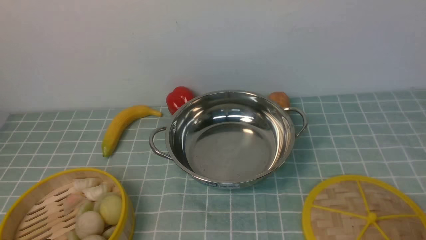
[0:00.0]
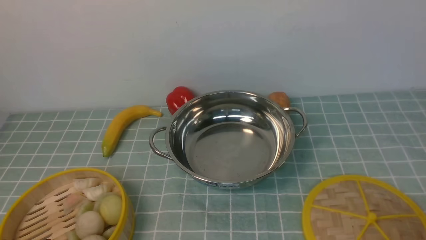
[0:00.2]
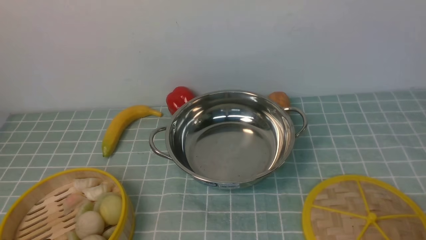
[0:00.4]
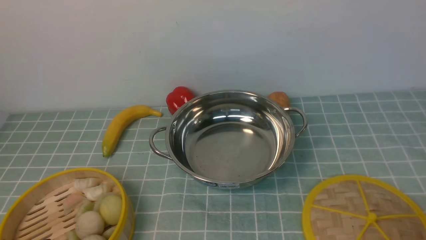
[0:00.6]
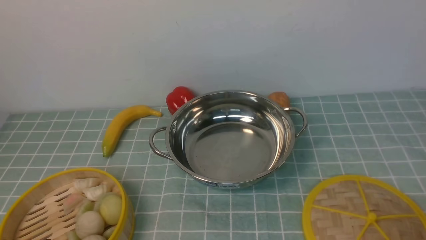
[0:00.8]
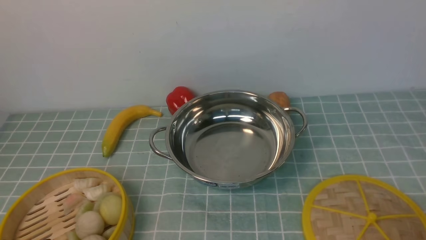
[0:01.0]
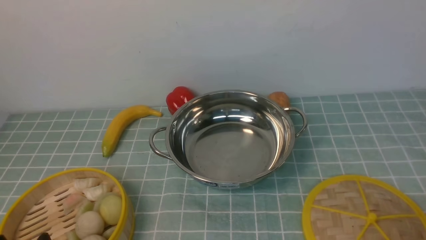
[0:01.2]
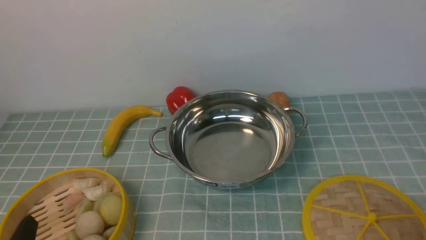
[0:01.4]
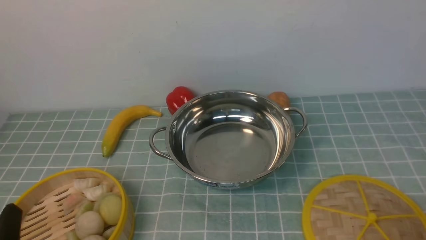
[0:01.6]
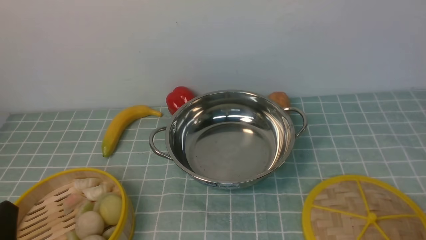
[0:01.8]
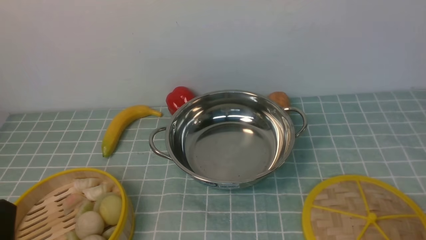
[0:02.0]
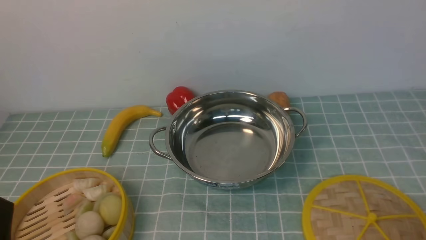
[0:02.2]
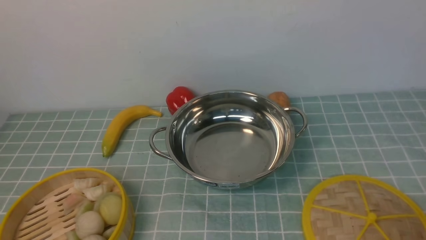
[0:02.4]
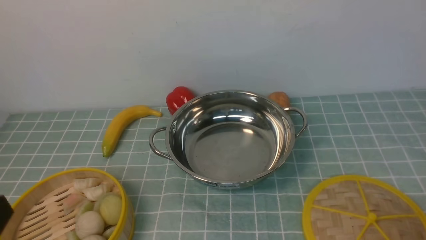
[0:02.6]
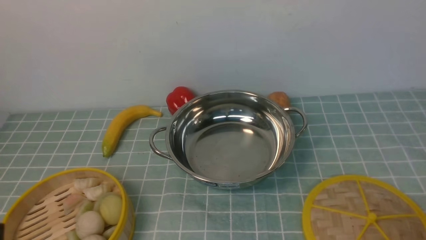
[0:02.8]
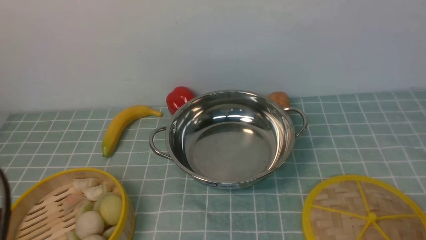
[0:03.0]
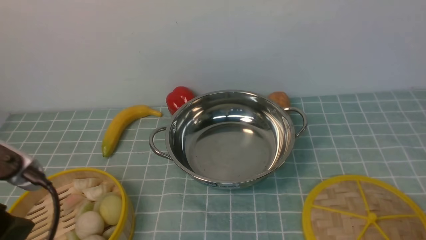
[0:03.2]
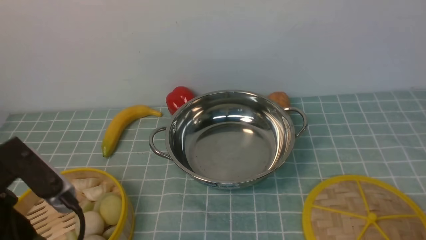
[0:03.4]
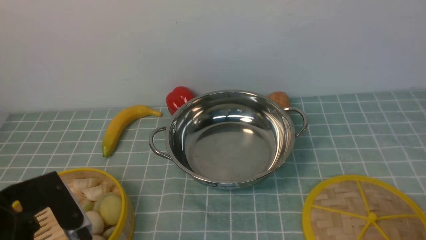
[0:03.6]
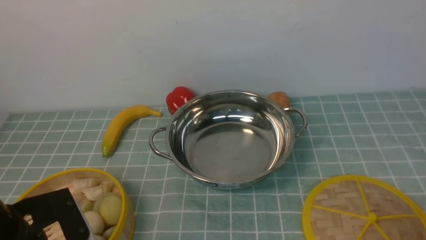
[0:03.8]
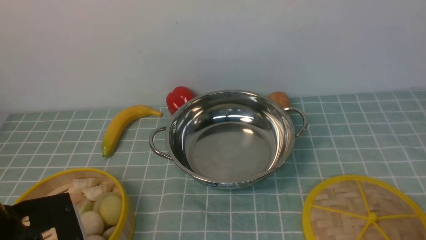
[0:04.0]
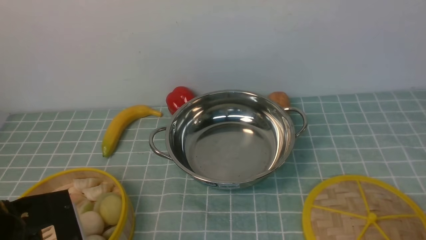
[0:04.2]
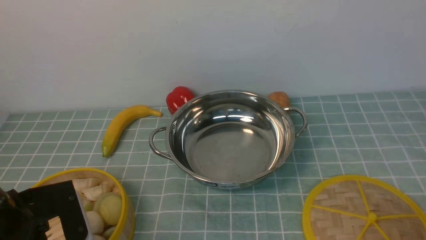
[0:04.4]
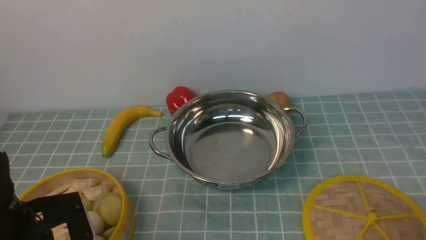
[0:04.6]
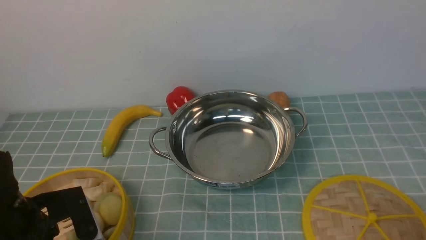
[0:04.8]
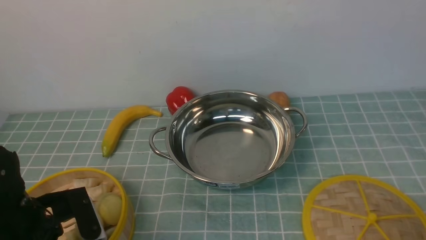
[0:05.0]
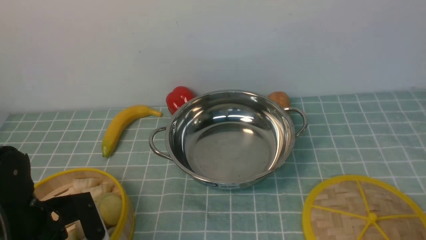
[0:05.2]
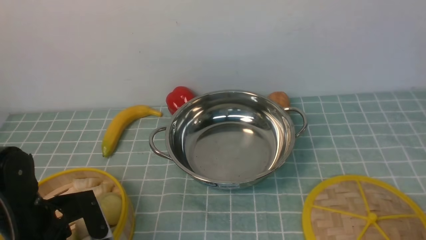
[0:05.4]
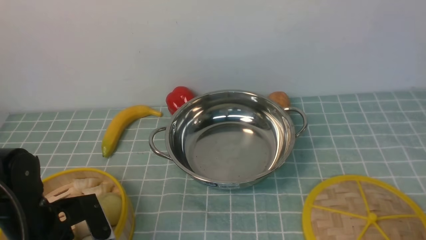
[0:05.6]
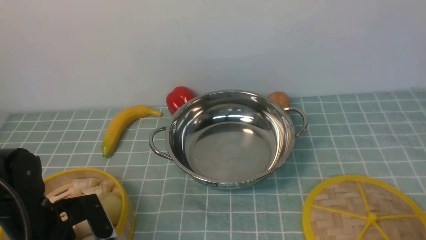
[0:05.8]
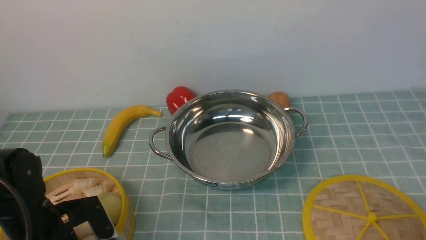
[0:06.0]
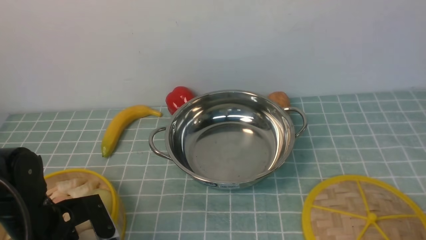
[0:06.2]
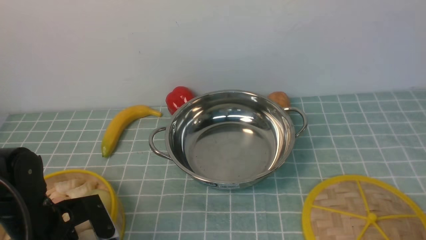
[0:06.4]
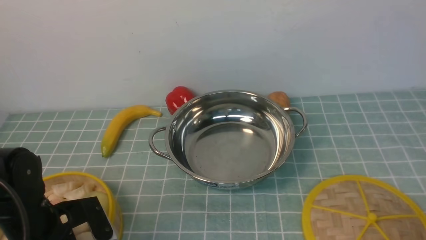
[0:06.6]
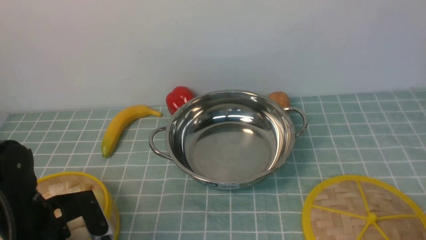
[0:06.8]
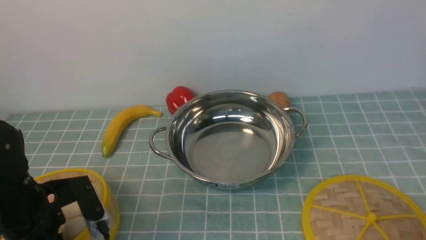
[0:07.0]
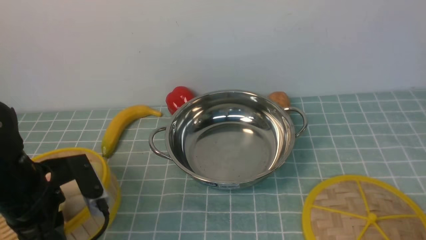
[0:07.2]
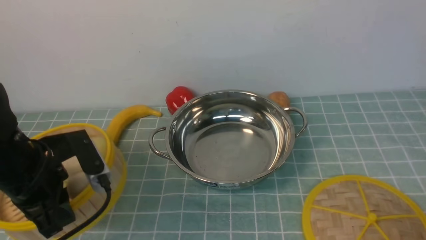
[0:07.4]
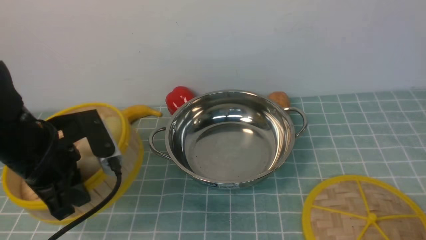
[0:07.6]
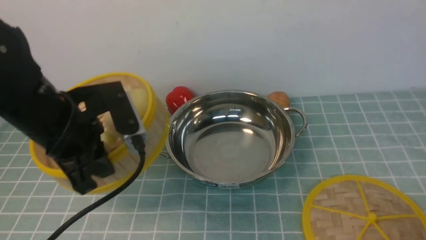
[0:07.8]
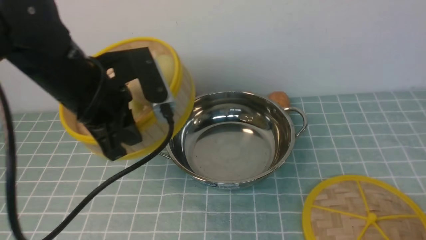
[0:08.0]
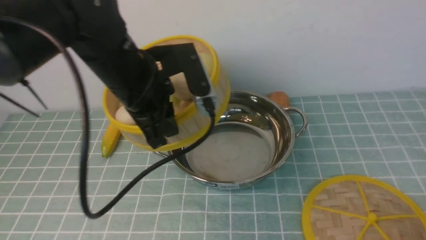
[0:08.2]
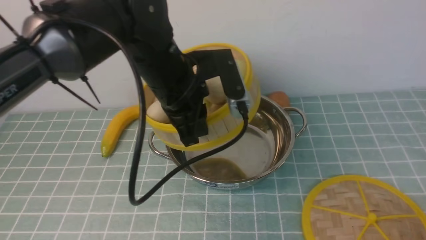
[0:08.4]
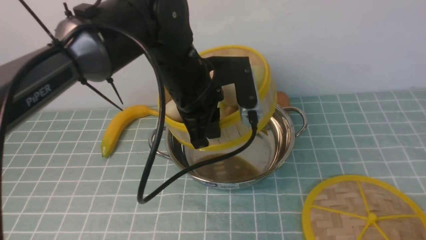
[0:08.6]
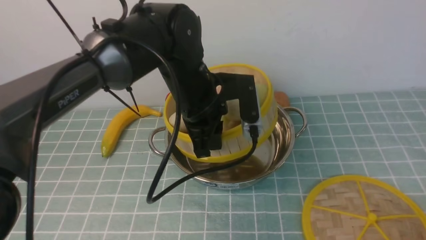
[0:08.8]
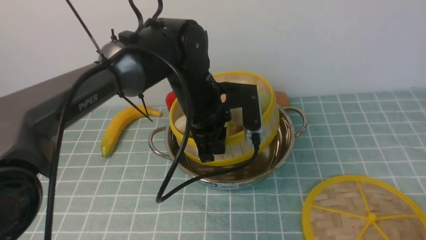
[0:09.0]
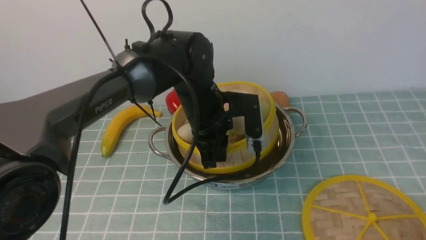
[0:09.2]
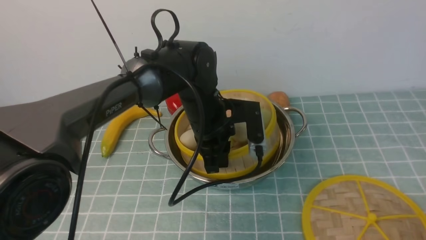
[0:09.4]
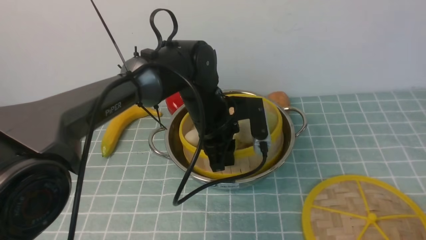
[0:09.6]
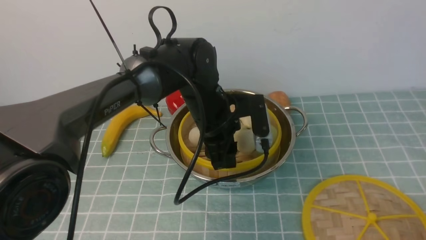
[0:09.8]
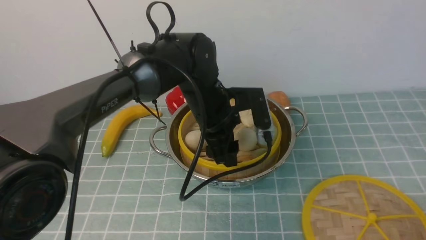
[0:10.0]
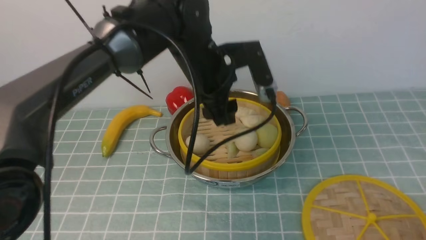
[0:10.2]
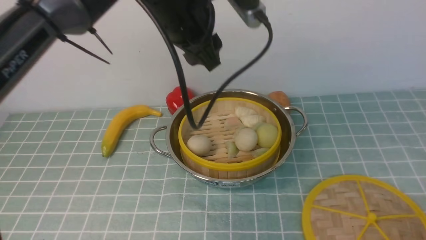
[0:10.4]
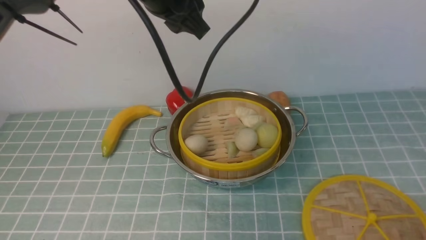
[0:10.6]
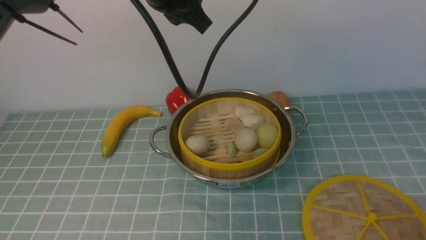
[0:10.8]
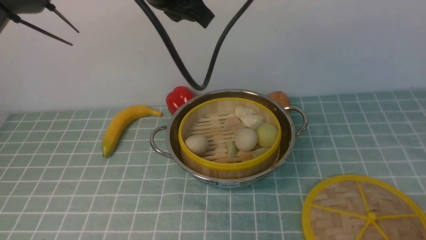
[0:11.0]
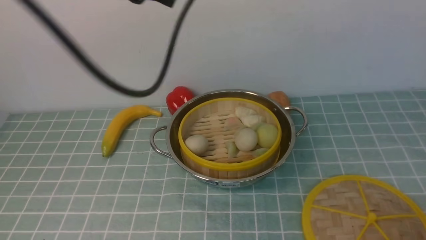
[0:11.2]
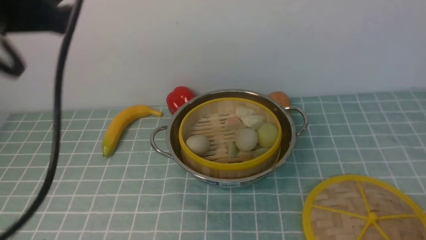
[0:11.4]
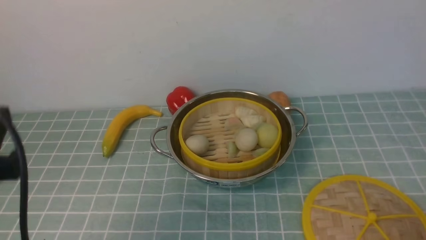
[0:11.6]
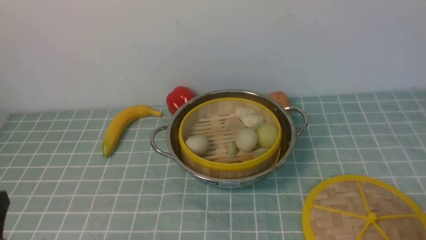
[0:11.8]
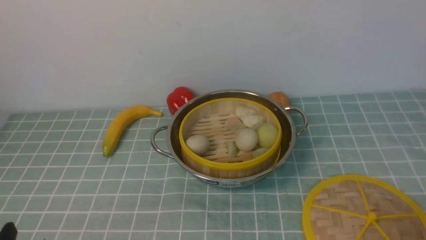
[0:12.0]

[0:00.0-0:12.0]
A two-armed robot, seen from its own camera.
Task of the whole recording: place the steamer in the pot on the blue tablecloth, and put the lid on the steamer.
Step, 0.0 to 7.2 s: use the left arm to lift the steamer closest to it.
Step, 7.4 to 10.4 s: use the left arm to put the steamer into the iron steamer pot in the middle.
1.6 to 3.0 s: The left gripper shifts some 15 cm upward.
3.0 to 4.4 s: The left gripper moves downward and forward, approximately 15 cm.
4.4 to 6.0 s: The left gripper heads downward, covering about 5 cm, and closes.
6.0 to 7.6 s: The left gripper travels upward by approximately 10 cm.
7.6 to 9.0 s: The left gripper heads to the right and forward, covering about 20 cm.
9.0 to 10.4 s: The left gripper travels upward by approximately 15 cm, and opens up.
10.4 to 12.0 s: The left gripper goes roughly 40 cm backward, to the left and downward.

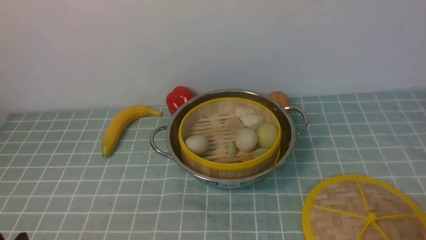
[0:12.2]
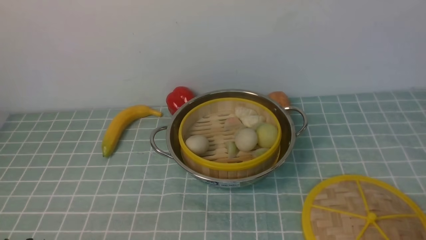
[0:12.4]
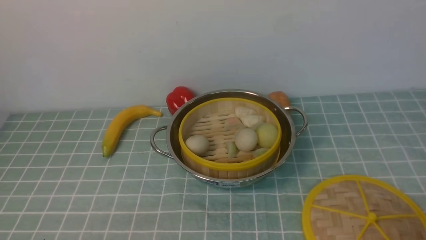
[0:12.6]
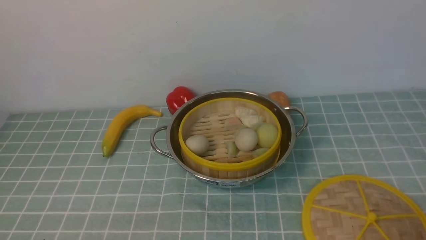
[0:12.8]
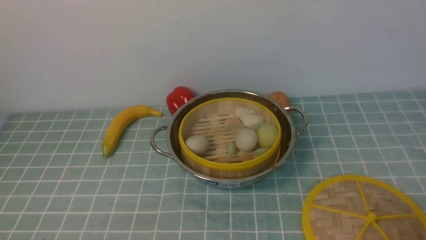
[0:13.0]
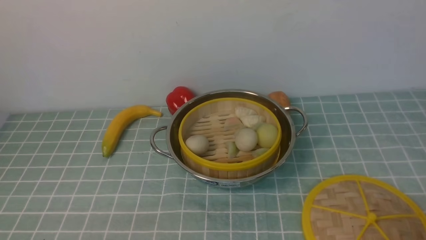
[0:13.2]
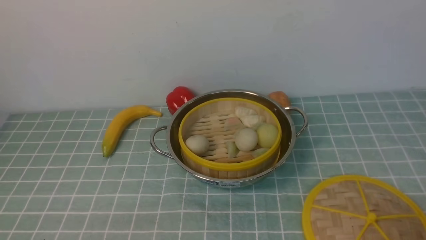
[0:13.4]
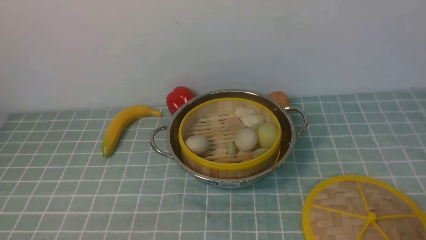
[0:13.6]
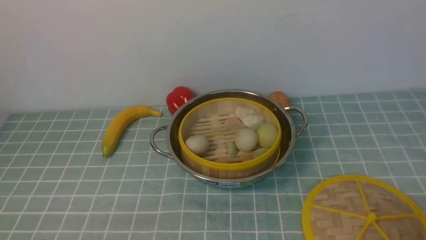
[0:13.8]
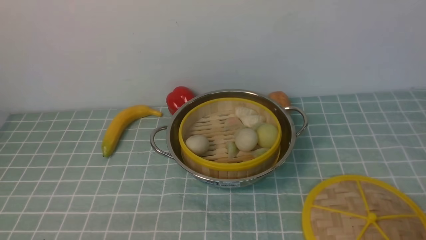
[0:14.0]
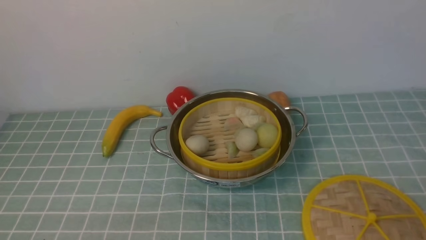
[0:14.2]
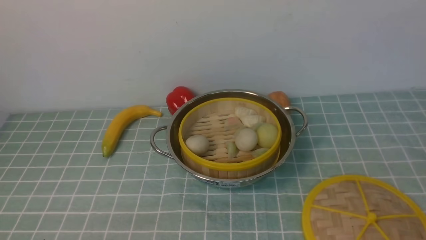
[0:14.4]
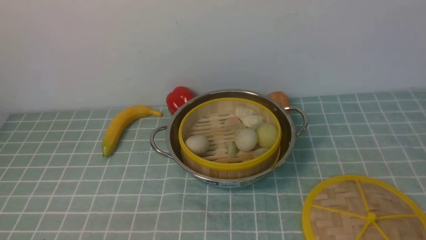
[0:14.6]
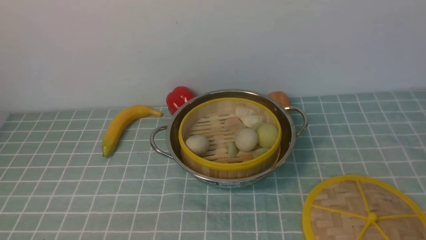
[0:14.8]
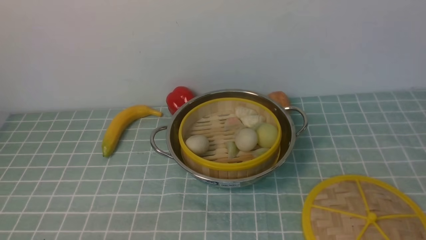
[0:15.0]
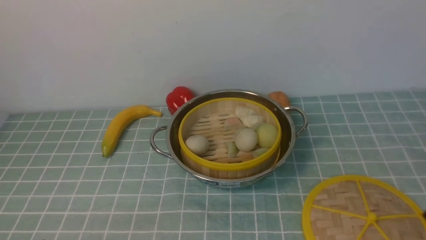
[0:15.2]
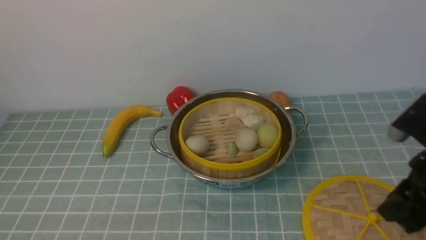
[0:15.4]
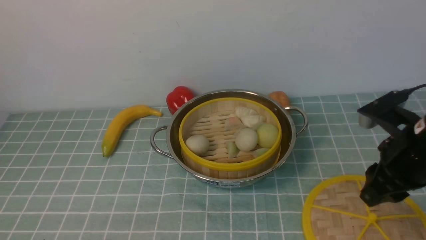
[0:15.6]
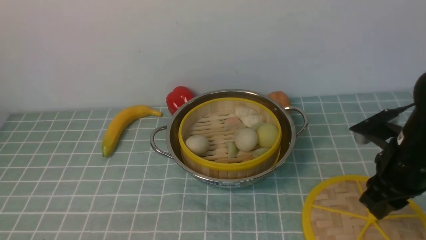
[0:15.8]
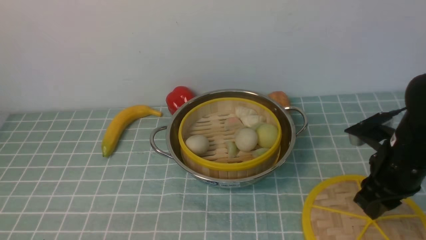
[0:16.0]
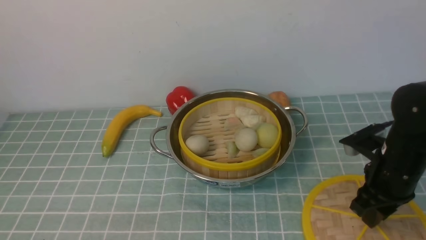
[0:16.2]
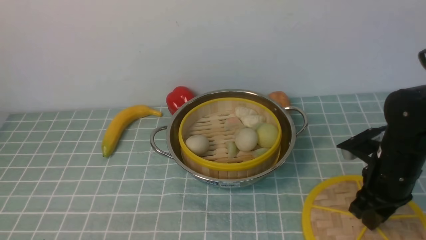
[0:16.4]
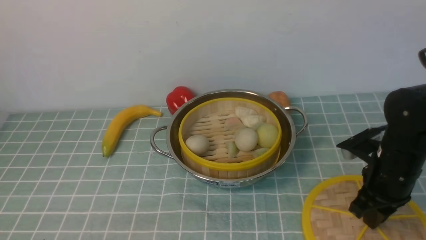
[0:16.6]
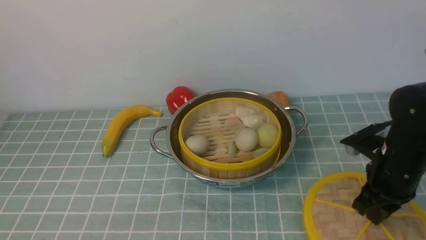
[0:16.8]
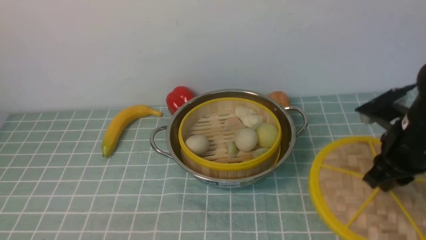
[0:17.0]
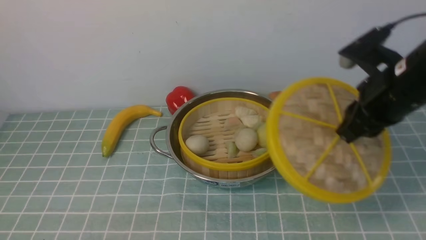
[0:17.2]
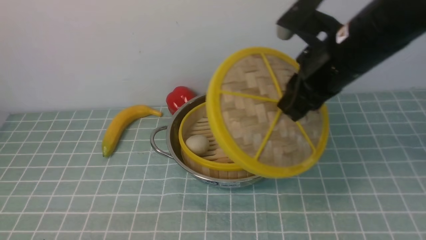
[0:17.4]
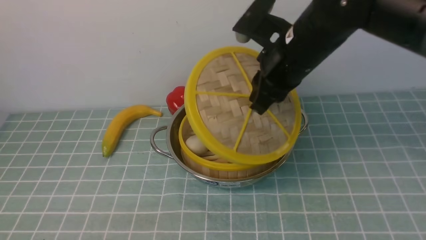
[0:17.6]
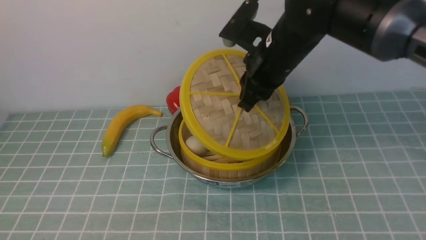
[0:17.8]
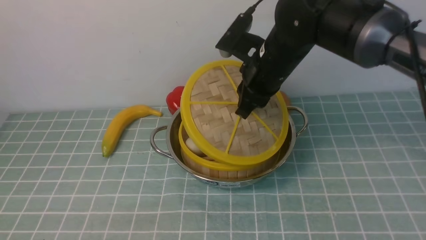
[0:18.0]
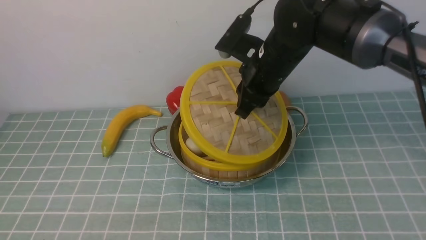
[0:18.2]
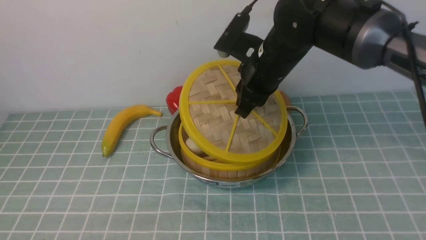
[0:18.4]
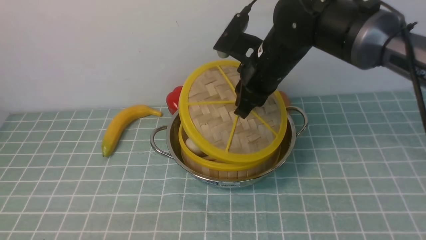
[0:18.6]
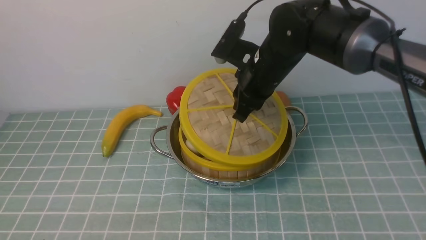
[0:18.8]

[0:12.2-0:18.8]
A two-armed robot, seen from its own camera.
Task of the whole recording: place the steamer in the pot on the blue tablecloth, and put the lid on the steamer.
Step, 12.2 to 17.2 s: use the right arm to lift the lid of the steamer.
13.8 to 15.4 s: The right gripper is displaced forward, upward and to the left by about 20 cm.
15.4 to 17.2 s: The right gripper is displaced forward and to the left by some 10 cm, and goes downward and returns, some 10 cm each way.
17.2 to 18.8 s: The right gripper travels to the left and forward by roughly 15 cm.
